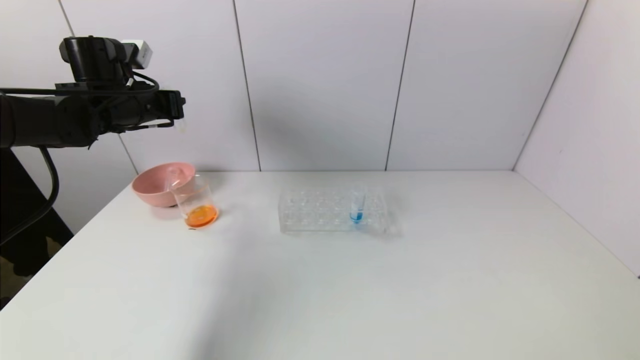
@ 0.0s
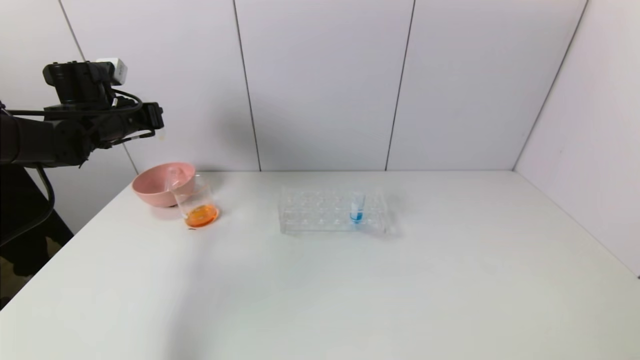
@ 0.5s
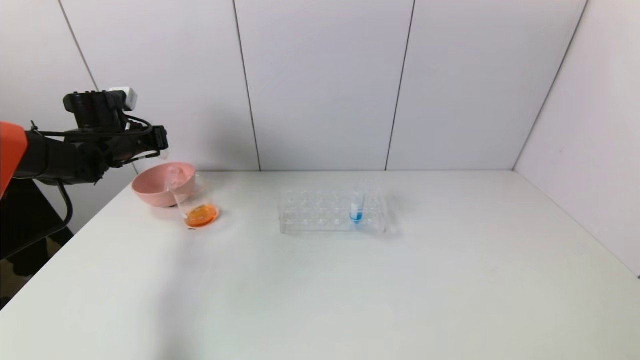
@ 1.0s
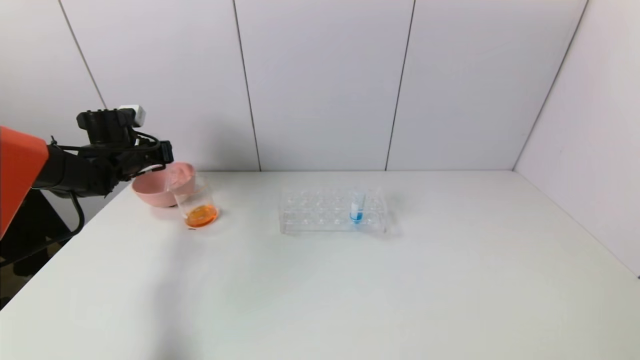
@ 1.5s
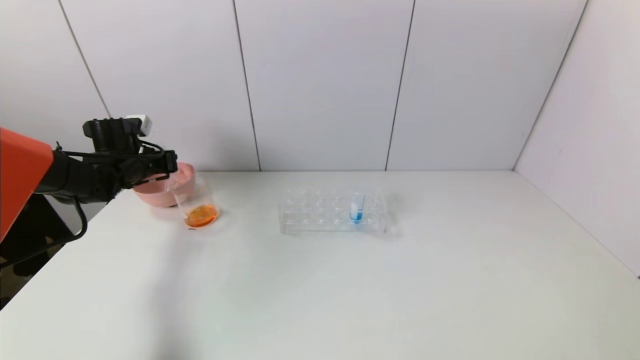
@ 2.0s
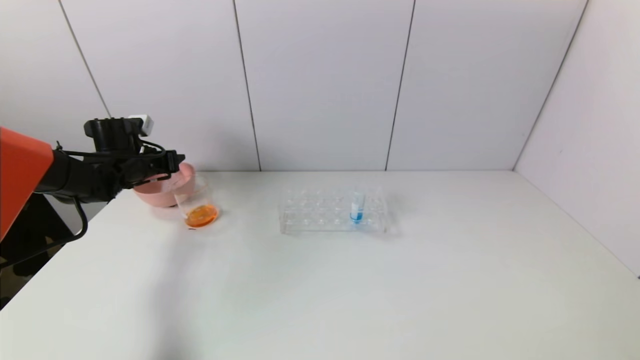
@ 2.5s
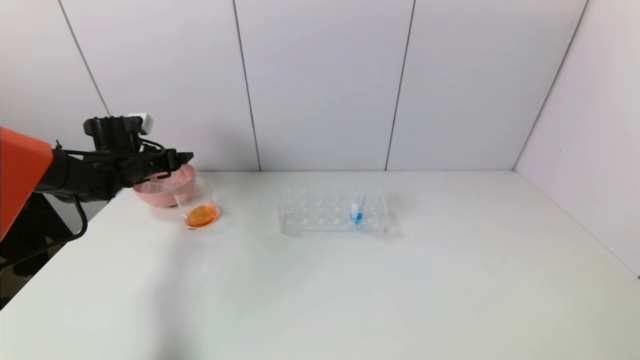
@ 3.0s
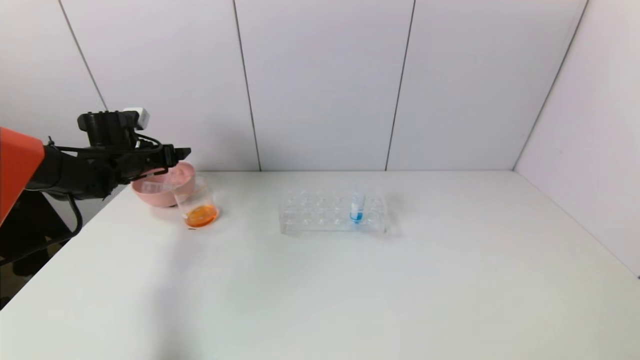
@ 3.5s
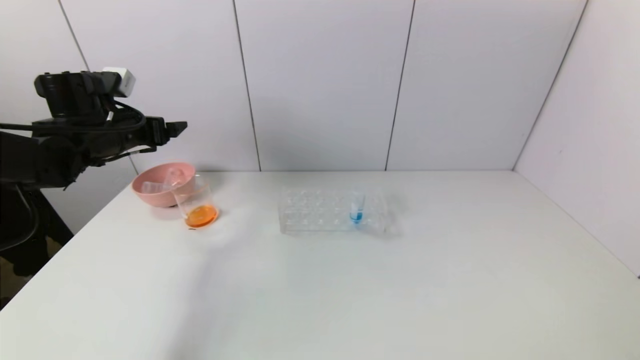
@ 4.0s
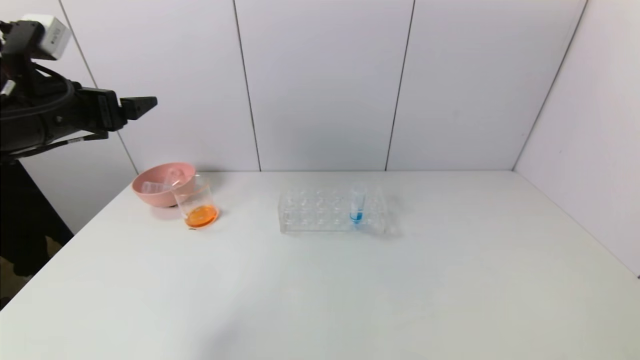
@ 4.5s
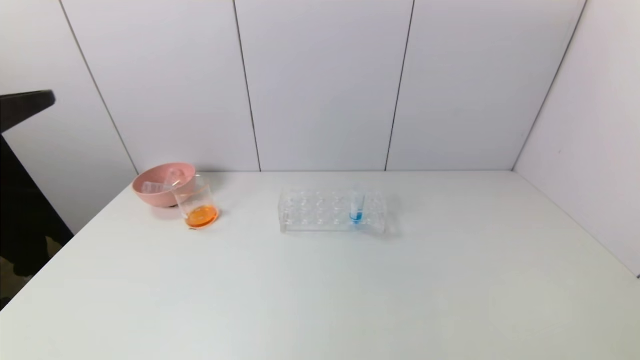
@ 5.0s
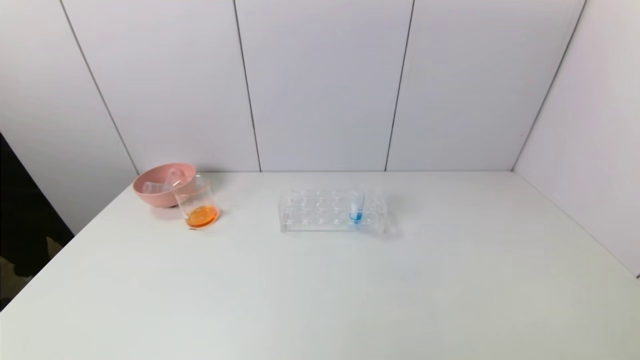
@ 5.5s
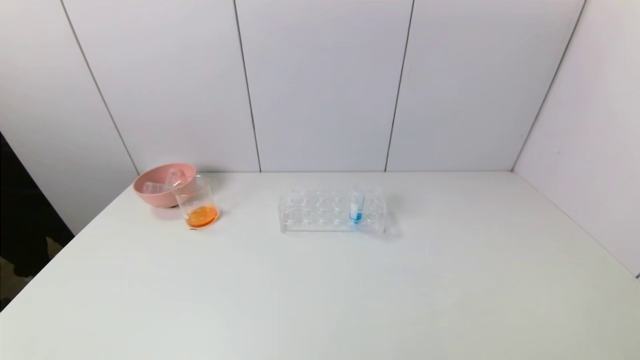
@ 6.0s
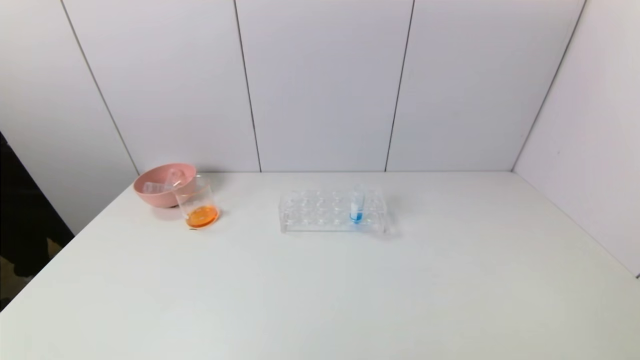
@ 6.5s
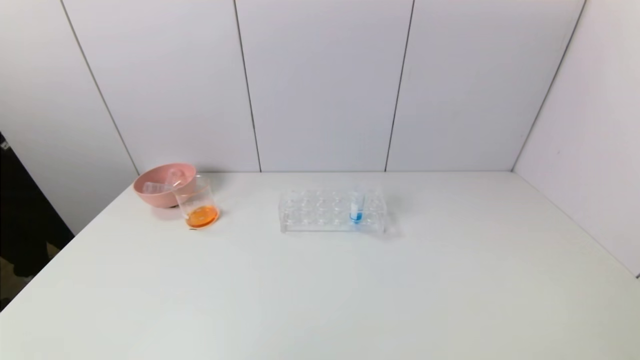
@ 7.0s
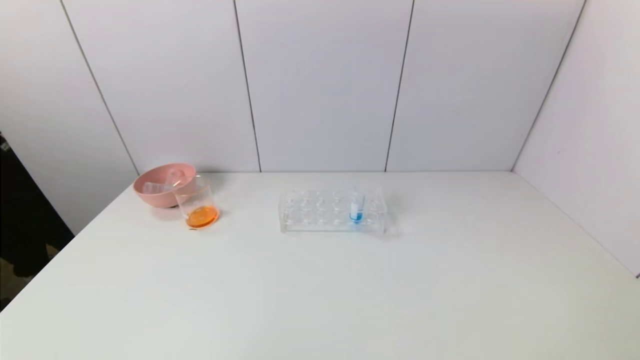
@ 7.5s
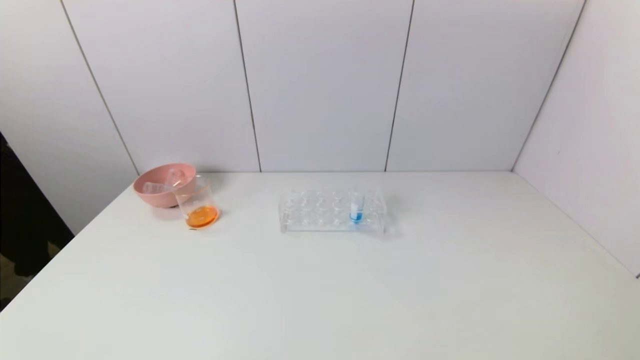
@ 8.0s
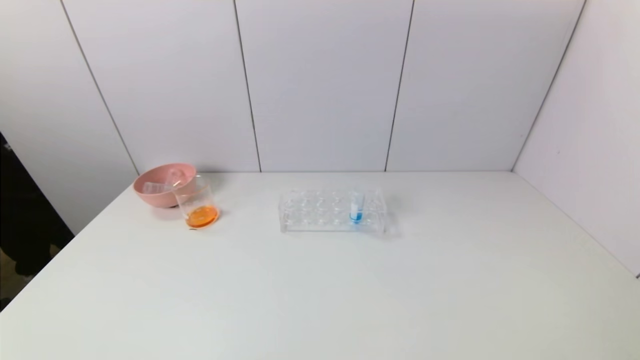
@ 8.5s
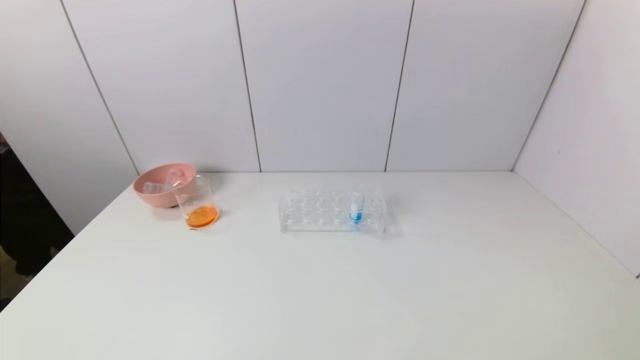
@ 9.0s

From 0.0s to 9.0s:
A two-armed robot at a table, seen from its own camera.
Task of the whole recording: pick up the test tube with yellow pigment and the test tube with red pigment by grippers and pour them into the beaker.
Step, from 0.0s to 2.5s: Place the test tube into the pink bowl with the left gripper.
From 0.0s to 2.0s: The left gripper is displaced downward and to the left by approximately 15 cm.
From 2.0s to 4.5s: The left gripper goes roughly 25 cm backward and upward, and opens.
From 4.5s to 7.0s: The left gripper heads backward and downward, covering approximately 35 cm.

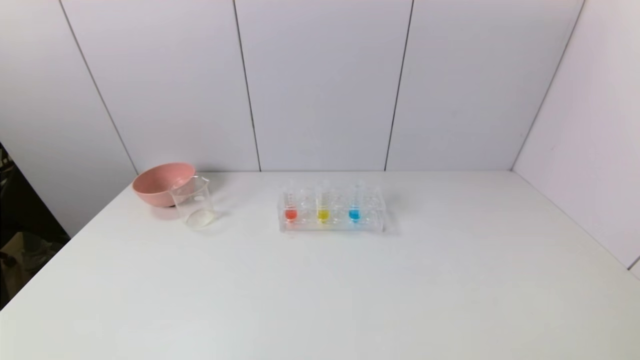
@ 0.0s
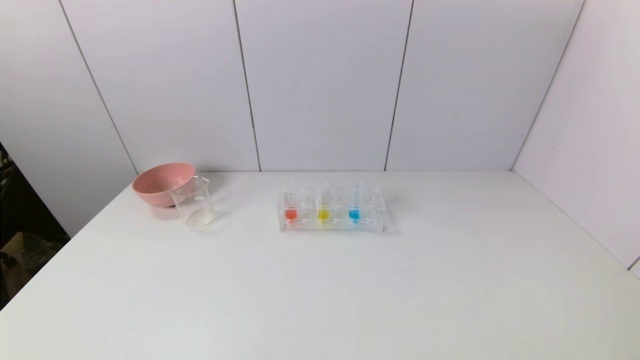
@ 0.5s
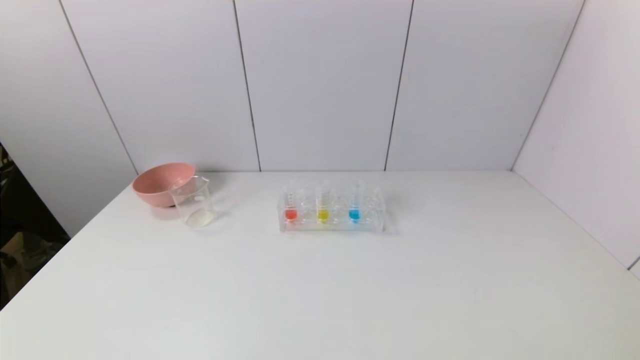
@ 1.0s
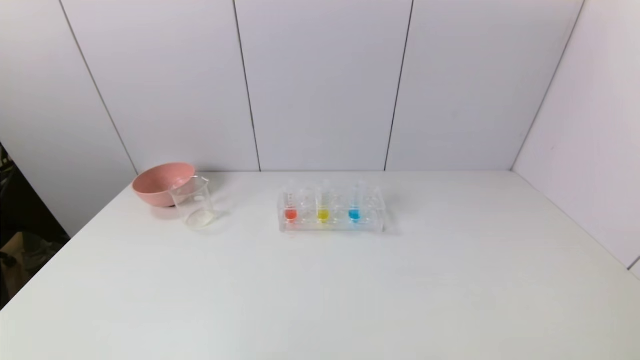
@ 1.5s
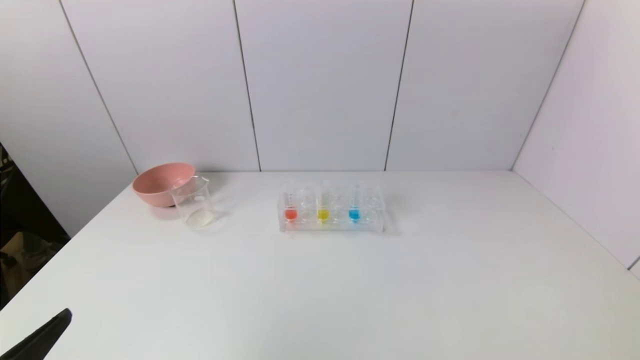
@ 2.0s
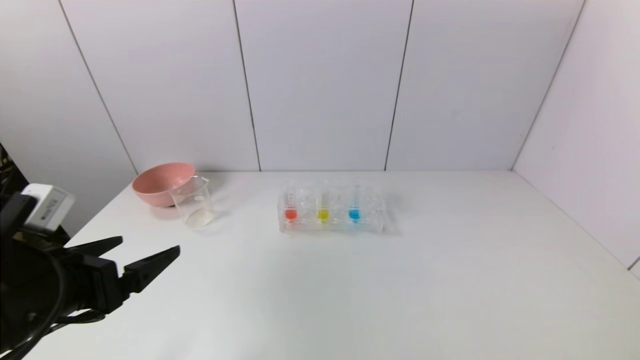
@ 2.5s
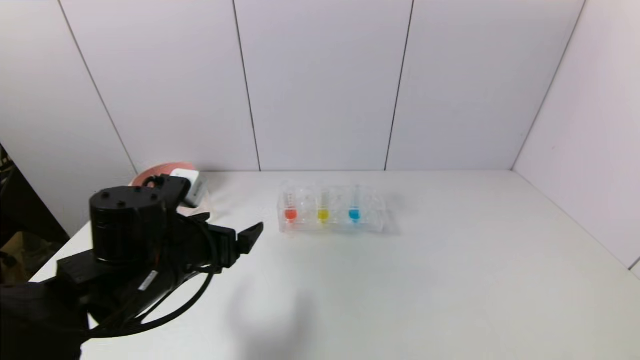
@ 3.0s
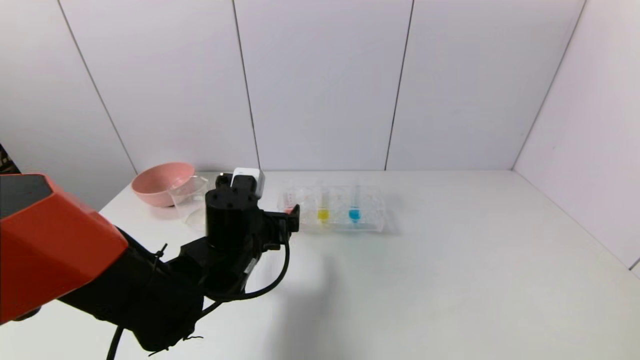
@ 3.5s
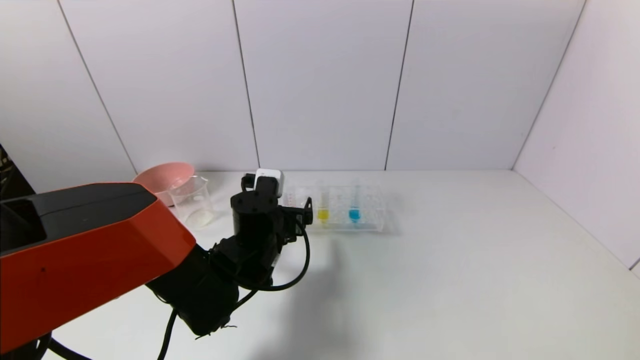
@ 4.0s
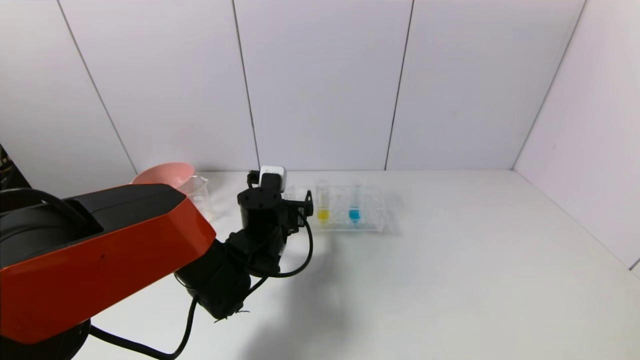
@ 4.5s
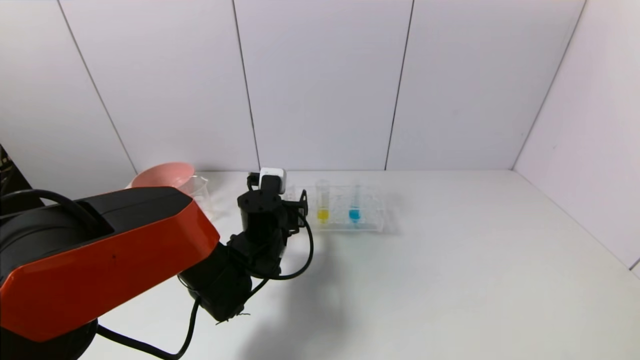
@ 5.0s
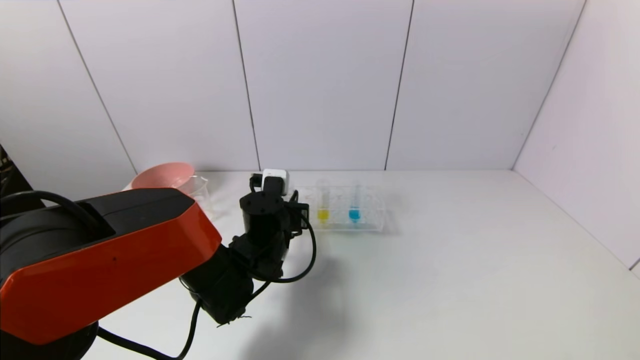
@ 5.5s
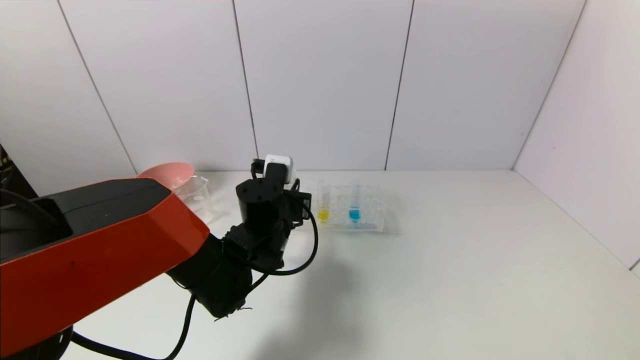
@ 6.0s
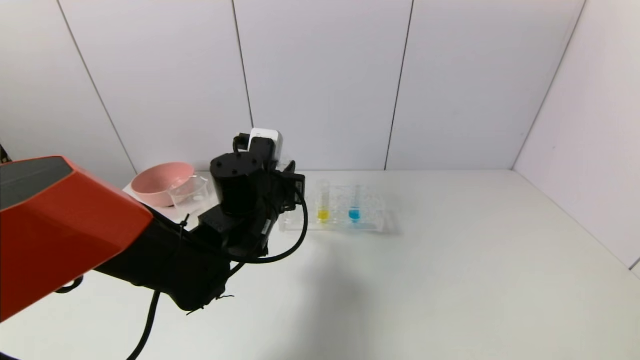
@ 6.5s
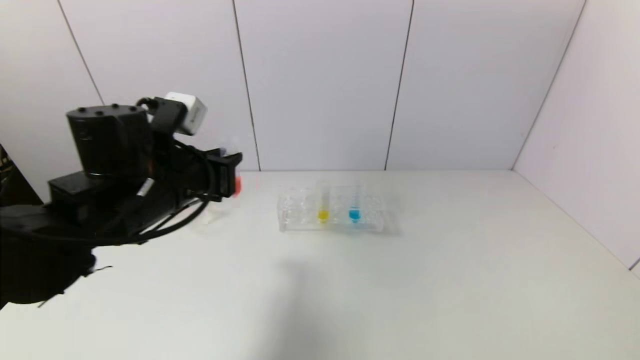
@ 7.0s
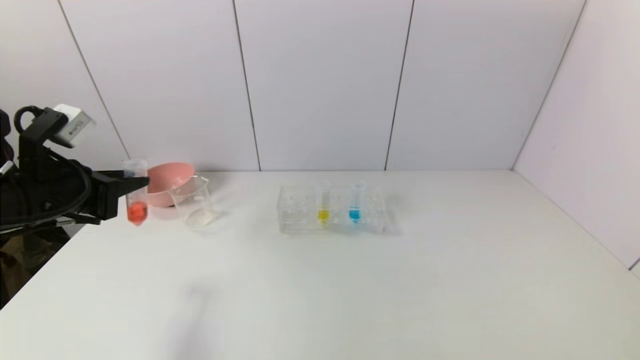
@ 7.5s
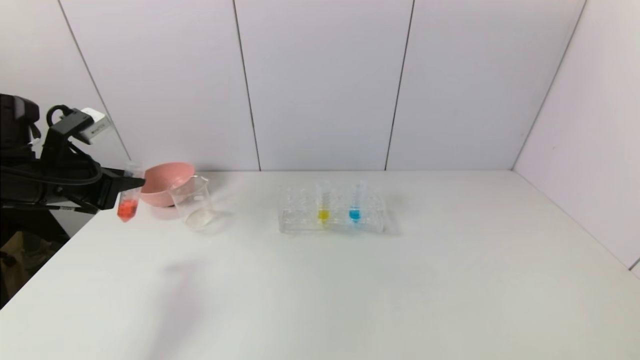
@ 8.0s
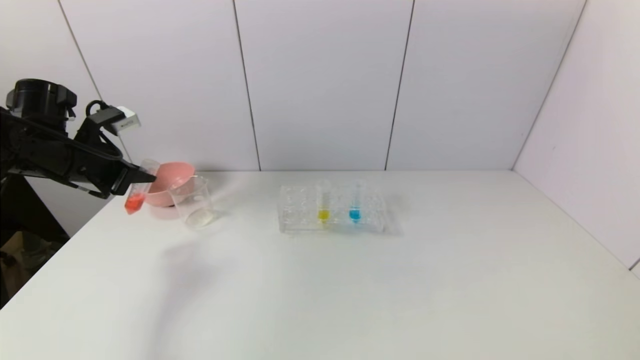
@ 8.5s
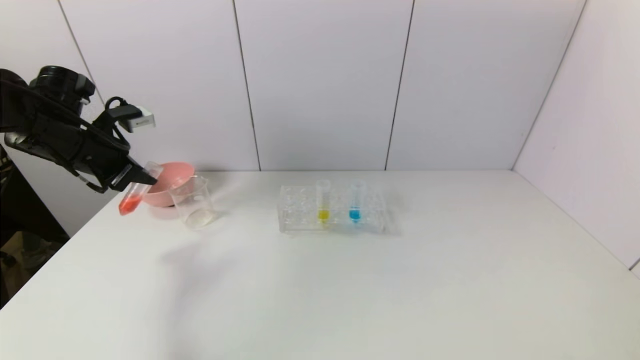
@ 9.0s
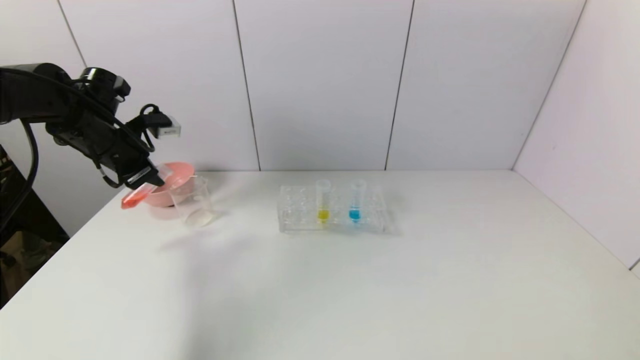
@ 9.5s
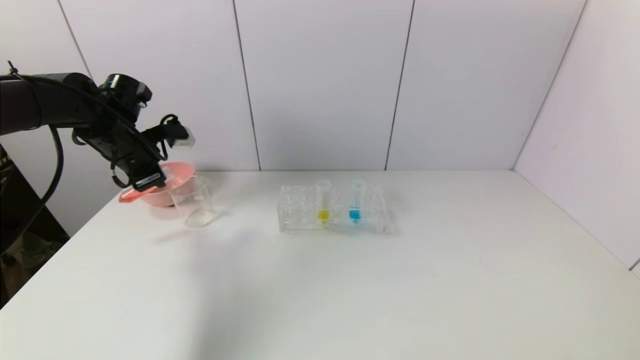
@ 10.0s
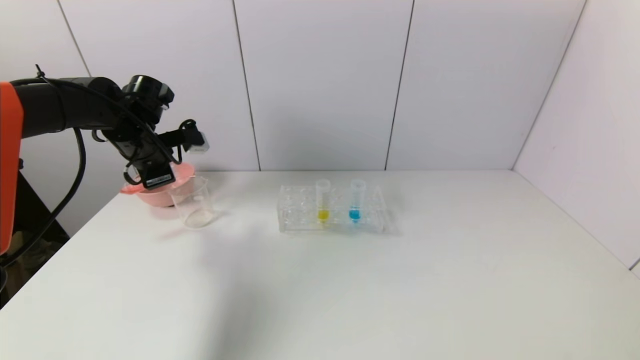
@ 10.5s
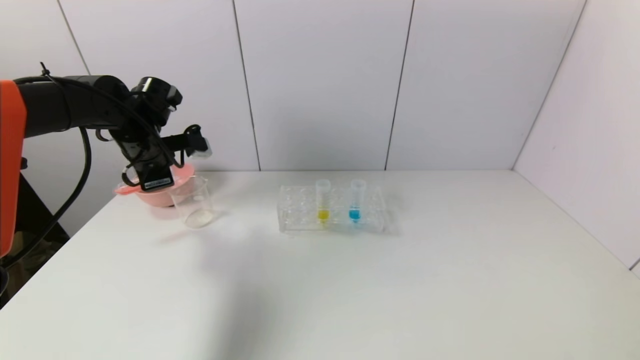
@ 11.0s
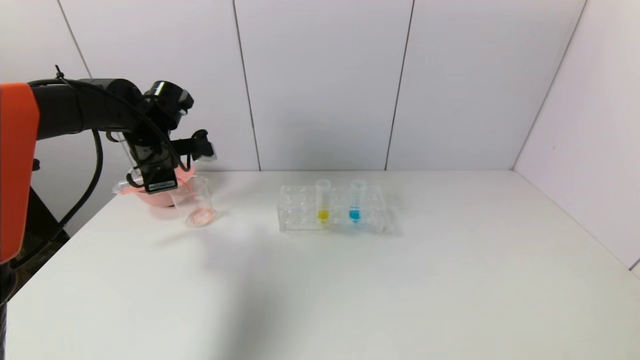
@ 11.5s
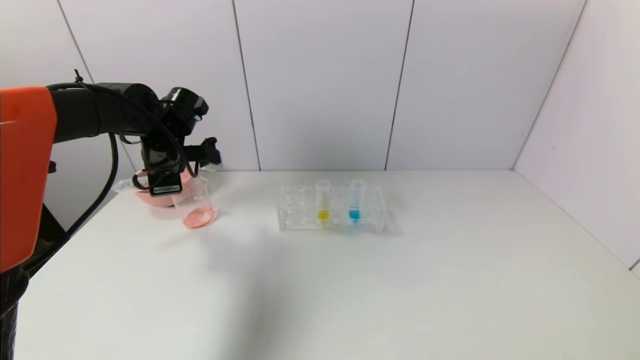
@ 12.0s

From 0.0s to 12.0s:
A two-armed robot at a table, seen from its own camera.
Task of the whole recording: pick up the test tube with yellow pigment and the test tube with red pigment by grippers and pour them into the beaker.
Step, from 0.0s to 5.5s: Grasp the red reagent with the left gripper.
From 0.0s to 2.0s: The left gripper moves upward and forward, some 10 cm.
From 2.0s to 4.0s: The left gripper moves forward and to the right, roughly 35 cm.
From 4.0s to 6.0s: The left gripper closes.
From 6.0s to 8.0s: The left gripper goes roughly 30 cm to the left.
From 8.0s to 10.0s: The left gripper heads forward, covering about 10 cm.
From 10.0s to 12.0s: The left gripper heads to the right, covering roughly 5 cm.
